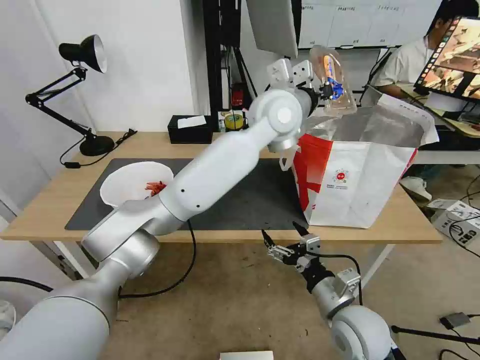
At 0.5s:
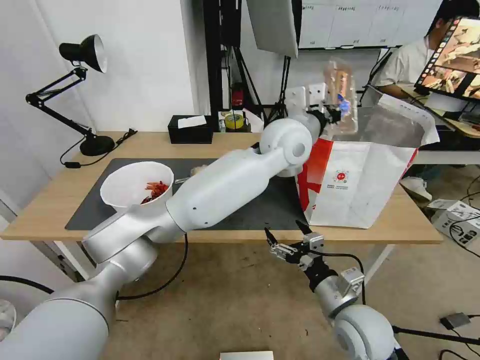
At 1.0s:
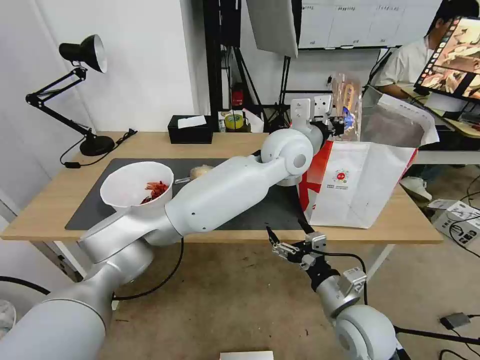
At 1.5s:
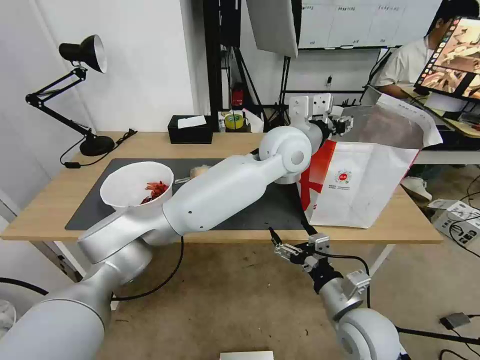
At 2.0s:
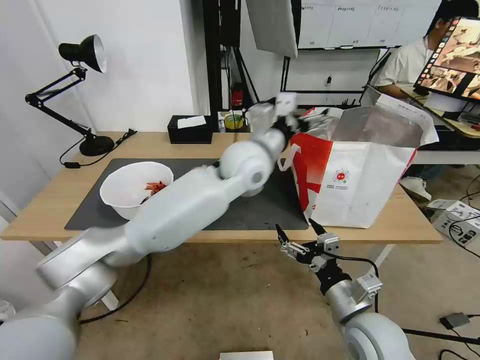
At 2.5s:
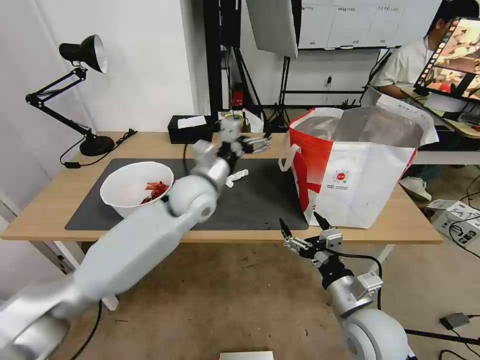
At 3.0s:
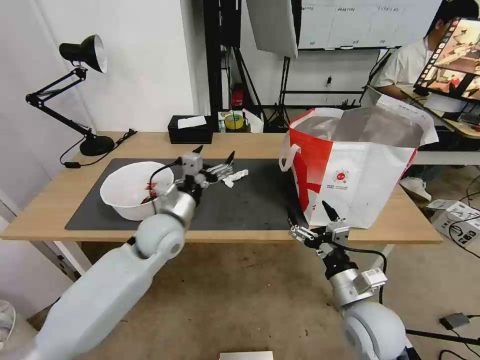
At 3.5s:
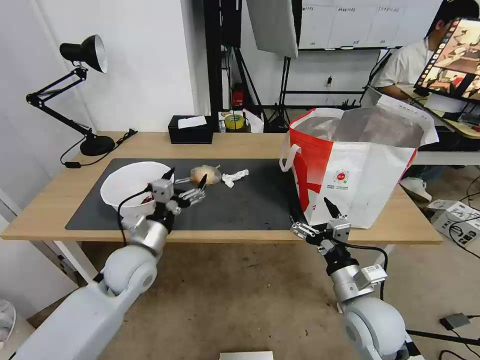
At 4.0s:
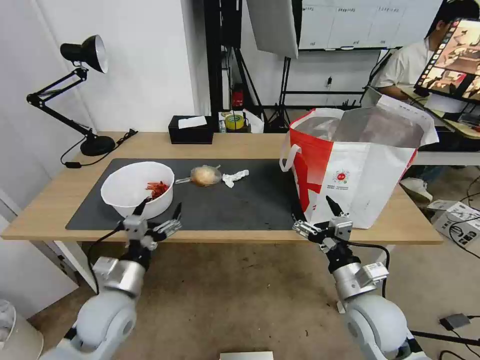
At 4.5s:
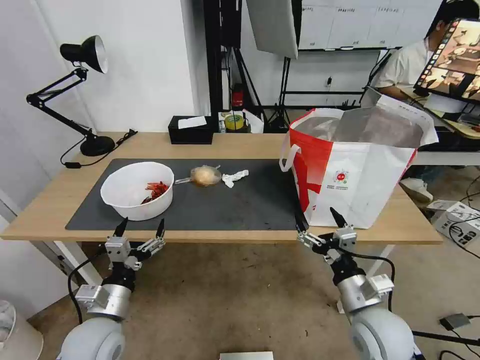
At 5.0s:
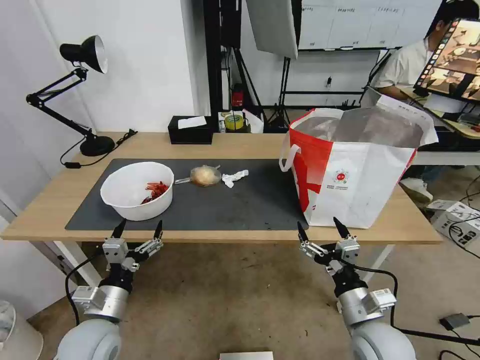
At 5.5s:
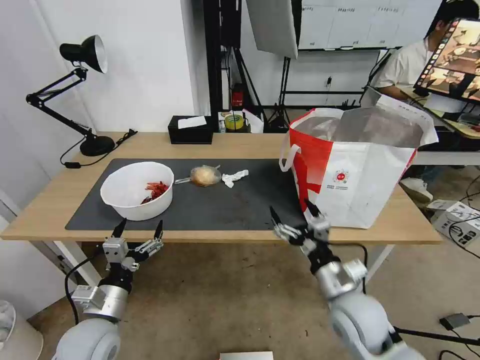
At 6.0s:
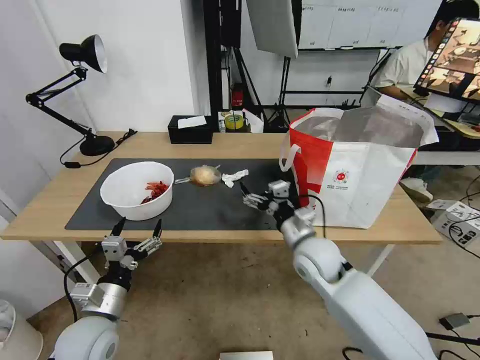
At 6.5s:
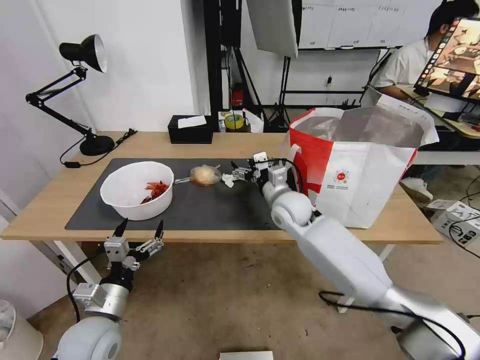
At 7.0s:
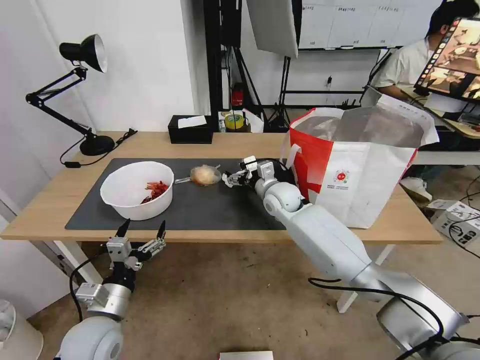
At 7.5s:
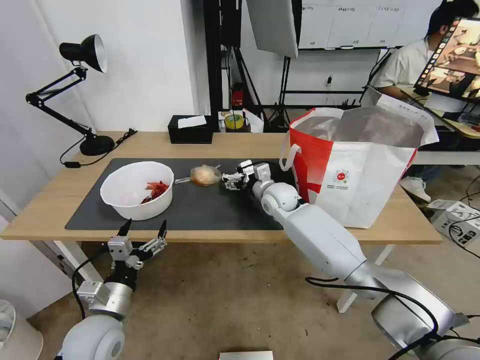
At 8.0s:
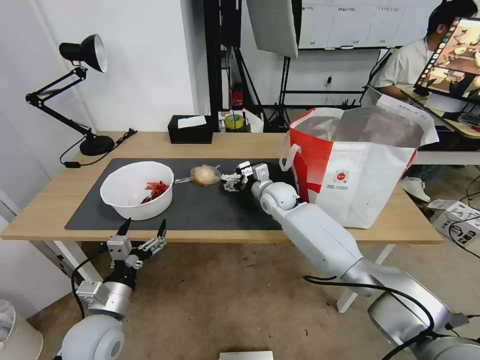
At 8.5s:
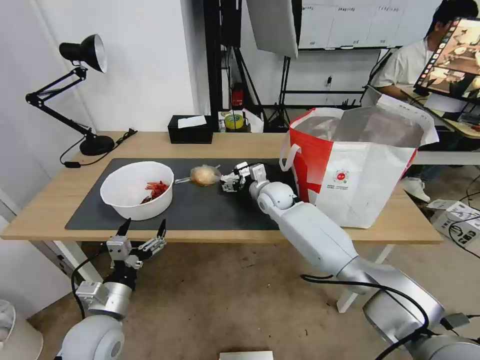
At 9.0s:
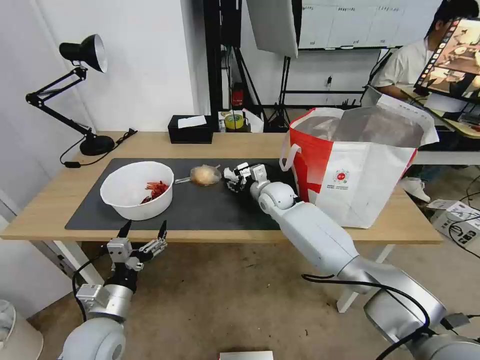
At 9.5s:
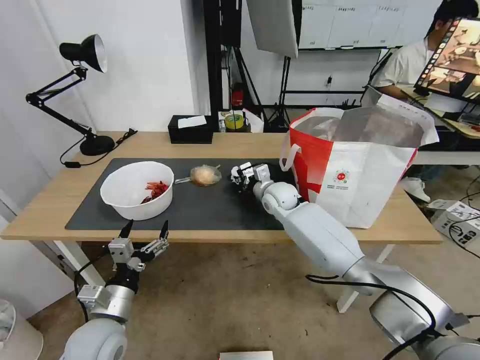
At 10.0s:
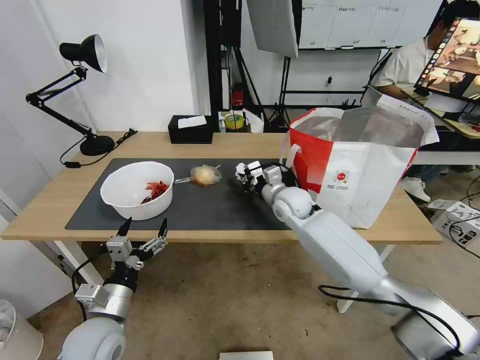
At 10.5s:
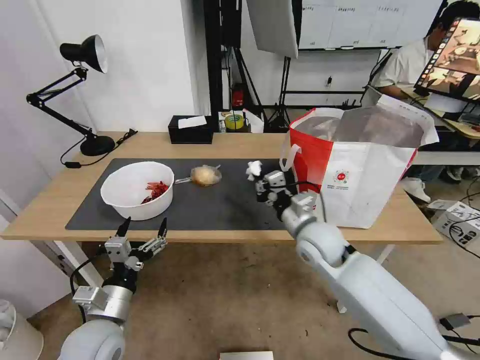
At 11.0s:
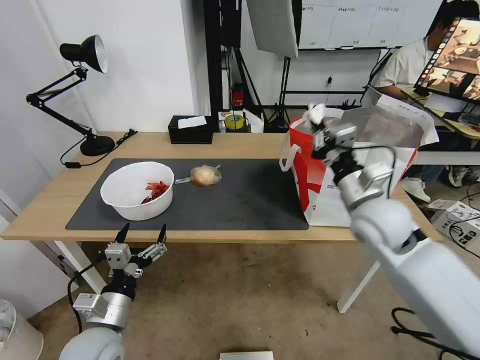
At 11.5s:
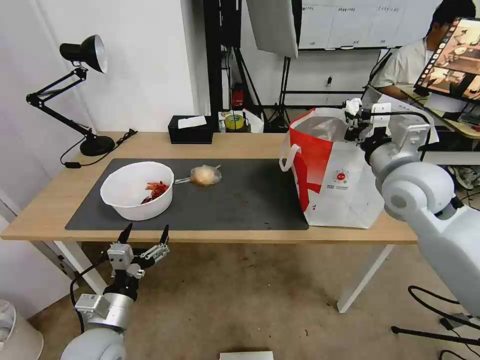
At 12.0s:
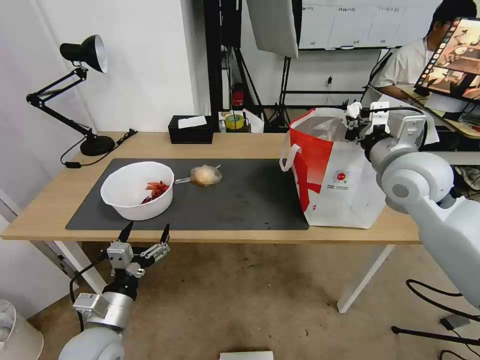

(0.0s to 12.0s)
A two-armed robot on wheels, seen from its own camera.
Task of the whole recording: Pick up the trash from the table and place it into the takeout bag.
0.0s - 2.0s: The left gripper is displaced downward and to the left by roughly 10 cm, and opens up.
2.0s - 4.0s: The left gripper travels to the left, backward and downward by some 40 cm.
4.0s - 6.0s: The right gripper goes about 15 cm forward and to the left; the left gripper shifts by roughly 5 cm.
6.0s - 8.0s: The right gripper heads forward, covering about 20 cm.
8.0s - 10.0s: The right gripper ends up approximately 5 cm from where it was, and closes its fingers.
10.0s - 12.0s: The right gripper shifts about 25 cm upward, to the right and backward.

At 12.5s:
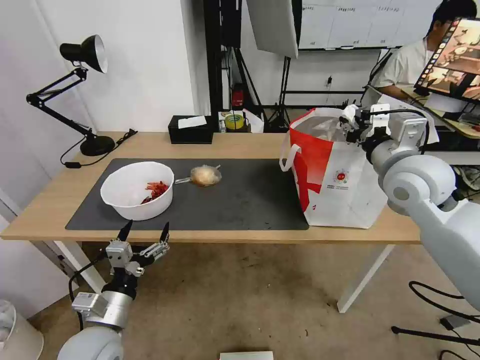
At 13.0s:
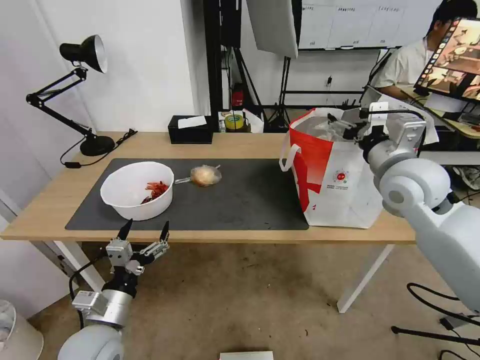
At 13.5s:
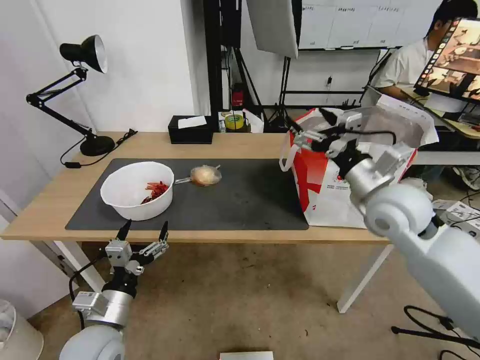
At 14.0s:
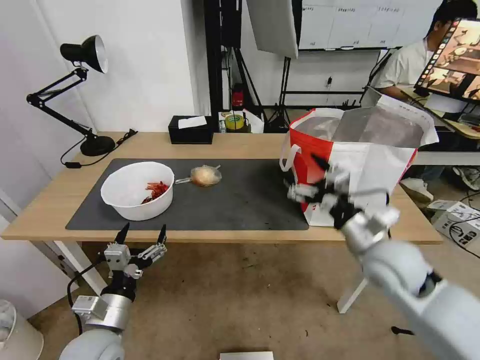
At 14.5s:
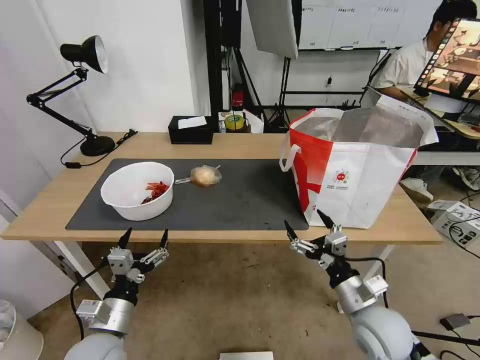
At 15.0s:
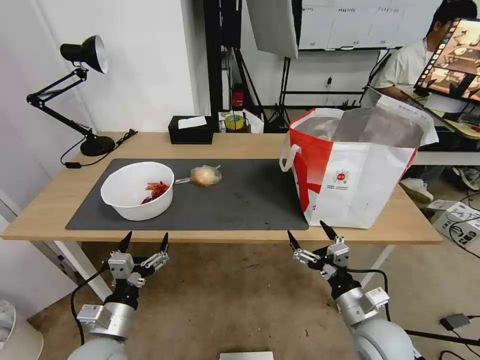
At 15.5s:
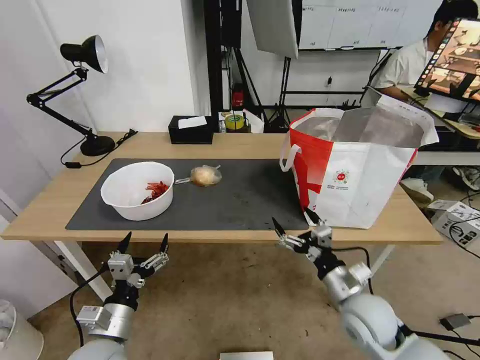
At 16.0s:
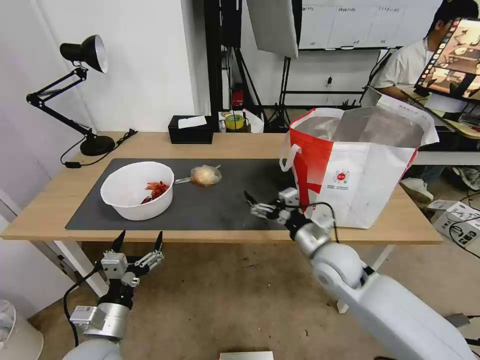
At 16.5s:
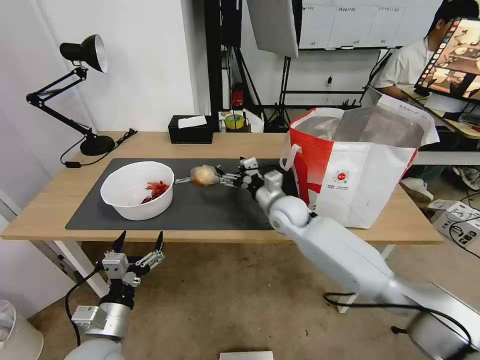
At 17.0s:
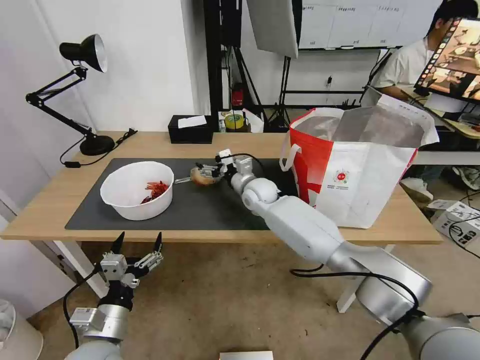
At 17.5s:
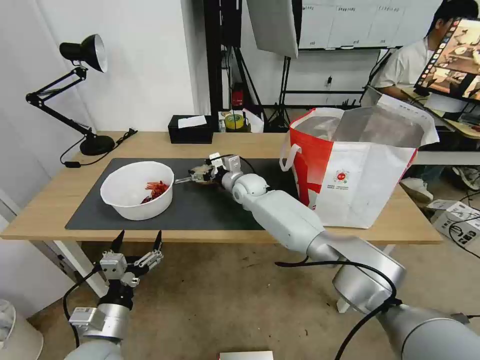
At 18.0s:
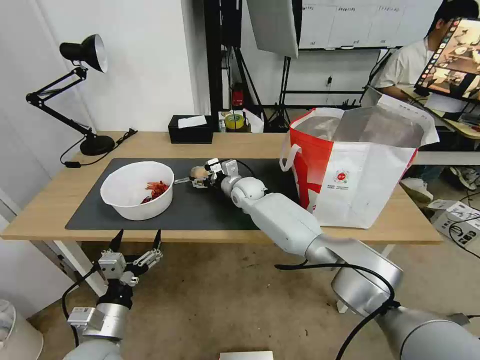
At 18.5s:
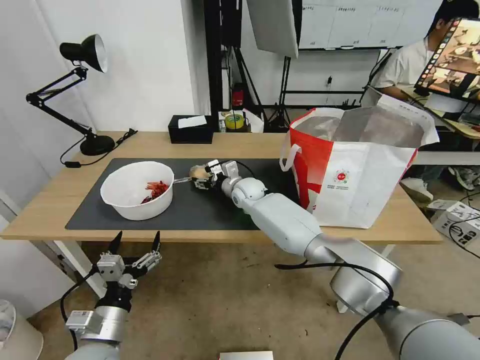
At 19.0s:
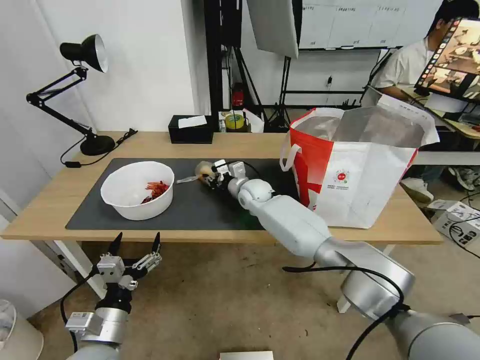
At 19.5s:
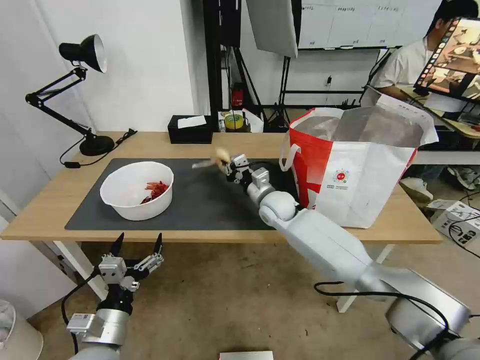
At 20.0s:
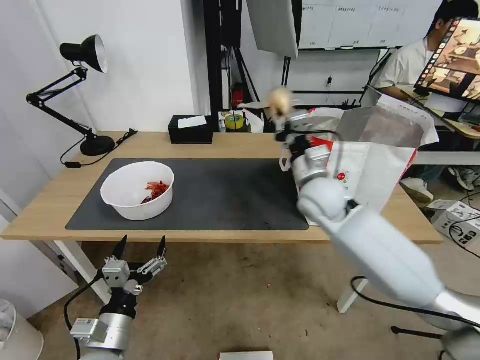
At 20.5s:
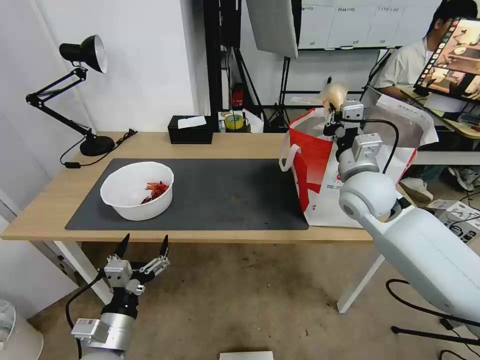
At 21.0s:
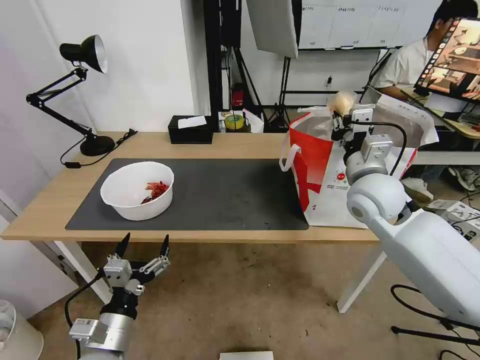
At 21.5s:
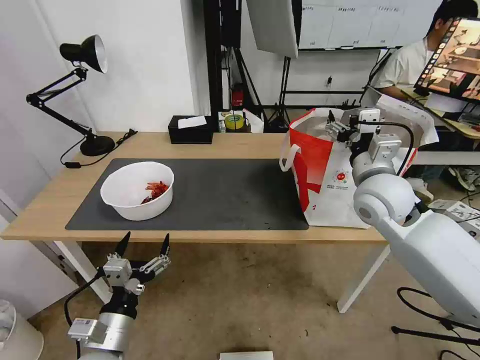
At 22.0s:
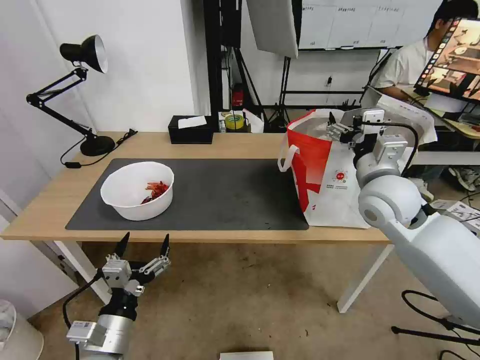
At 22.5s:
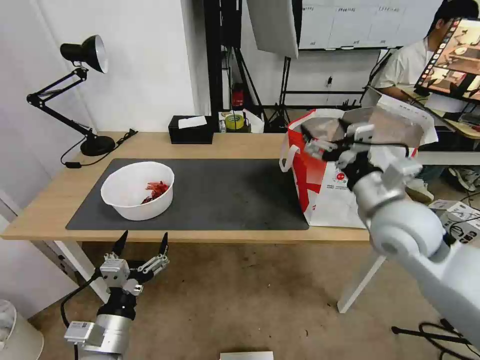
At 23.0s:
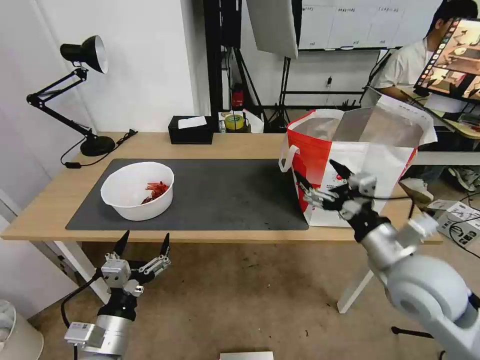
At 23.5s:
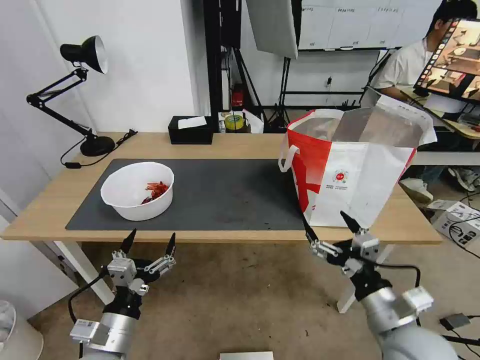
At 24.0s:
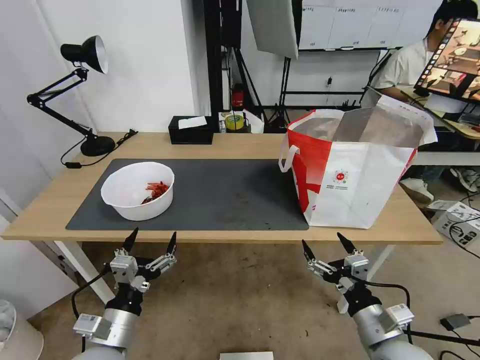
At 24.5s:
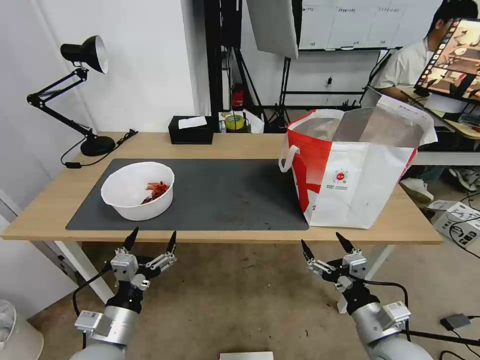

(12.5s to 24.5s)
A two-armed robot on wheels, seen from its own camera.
Task of the whole recording: Pick up the trash from the table and place it into the takeout bag.
12.5s - 14.5s: The right gripper heads downward and backward, covering some 30 cm, and opens.
14.5s - 16.5s: The right gripper heads forward and to the left, covering approximately 30 cm.
16.5s - 18.5s: The right gripper moves forward and to the left, roughly 15 cm.
18.5s - 20.5s: The right gripper shifts roughly 30 cm to the right, backward and upward, and closes its fingers.
20.5s - 22.5s: The right gripper is displaced backward by about 10 cm, and opens.
22.5s - 24.5s: The right gripper heads downward and backward, covering roughly 25 cm.

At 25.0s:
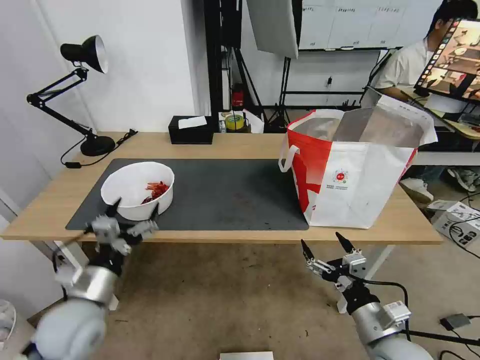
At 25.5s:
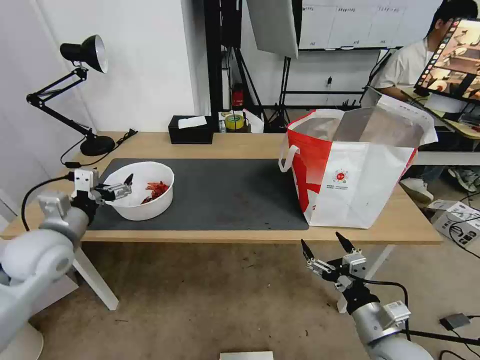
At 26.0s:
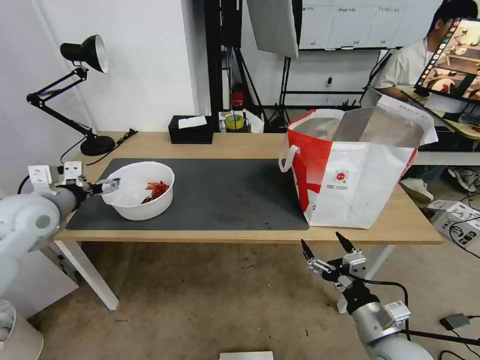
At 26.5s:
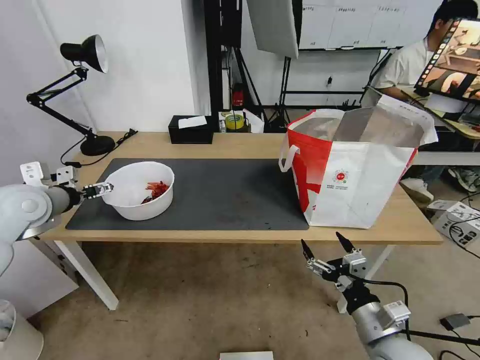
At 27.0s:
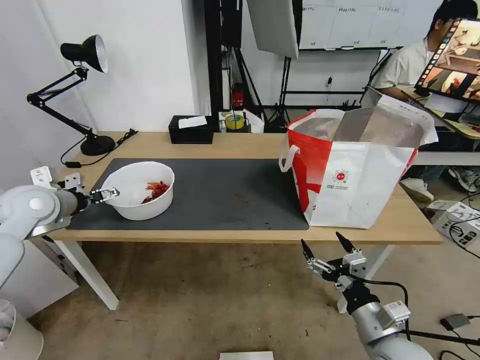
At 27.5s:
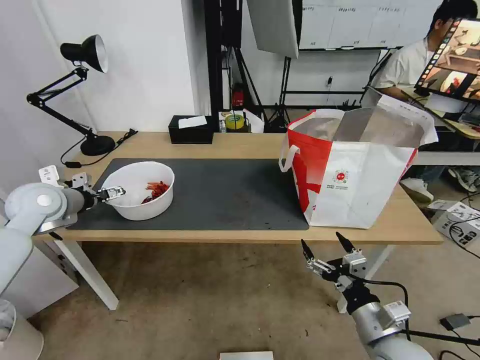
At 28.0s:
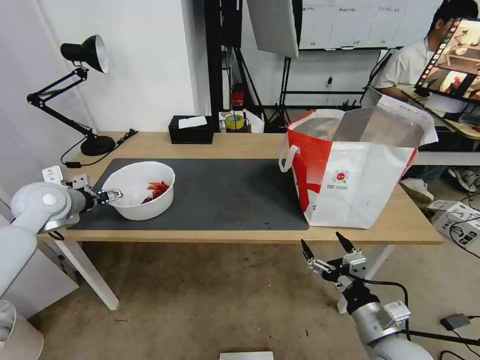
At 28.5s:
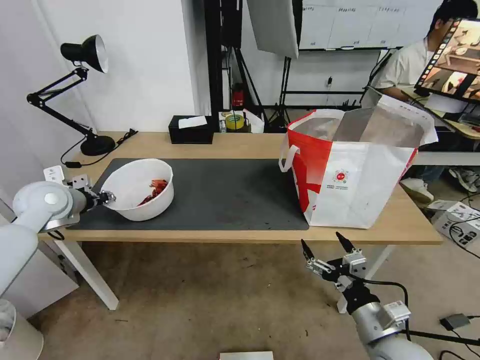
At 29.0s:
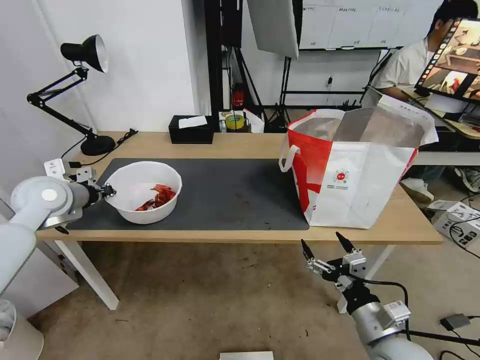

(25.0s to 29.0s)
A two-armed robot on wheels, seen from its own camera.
Task of the whole recording: Pick up the trash from the table and place it into the takeout bag.
25.0s - 27.0s: The left gripper is displaced forward, to the left and upward by approximately 25 cm.
27.0s - 29.0s: The left gripper closes its fingers.
